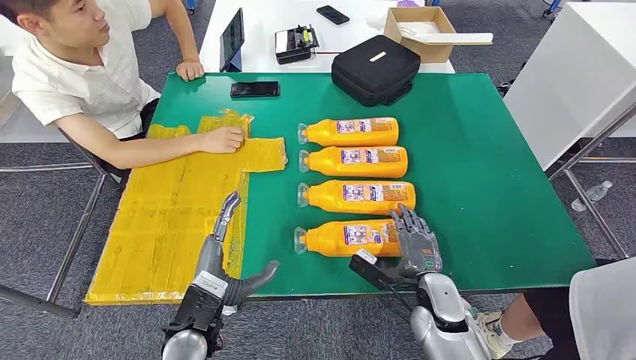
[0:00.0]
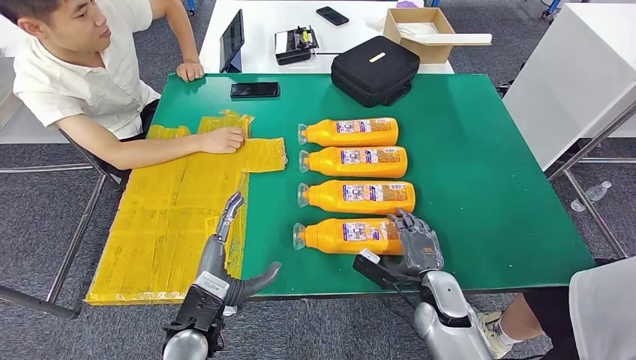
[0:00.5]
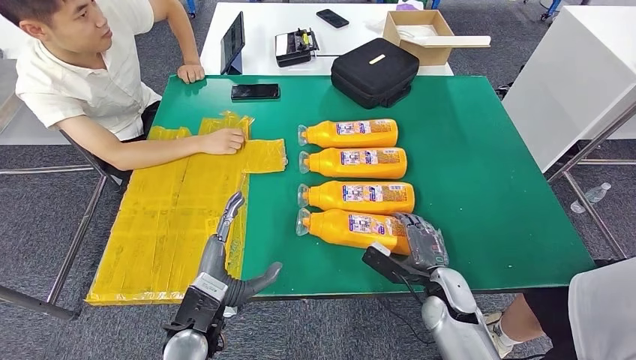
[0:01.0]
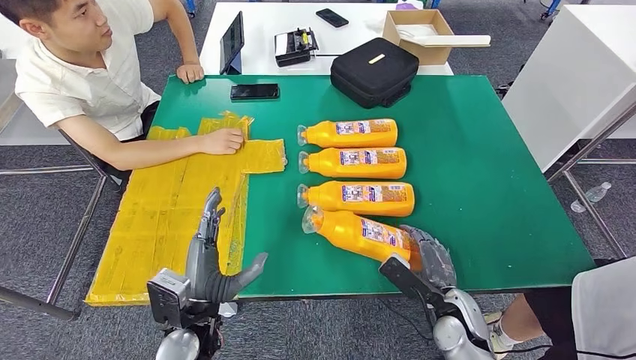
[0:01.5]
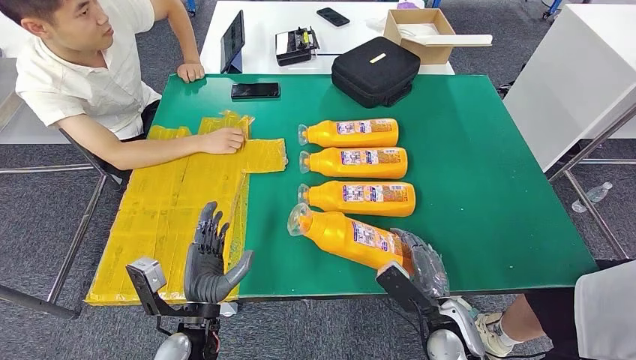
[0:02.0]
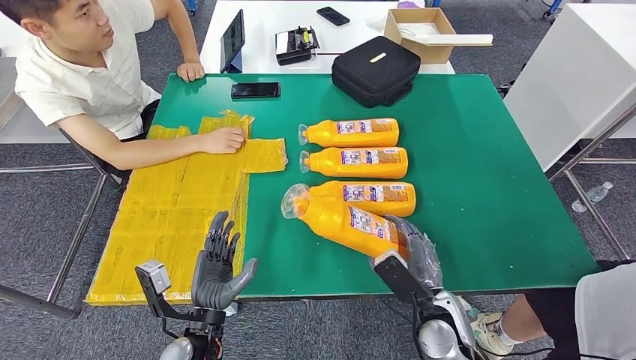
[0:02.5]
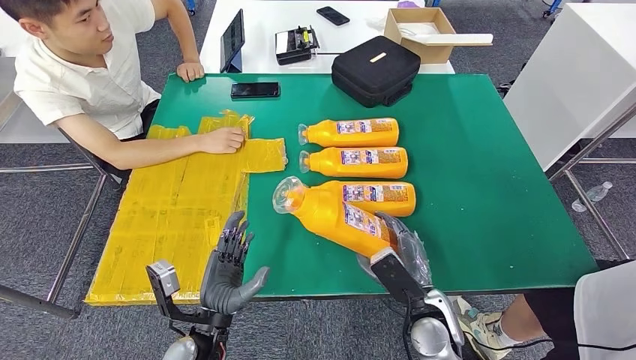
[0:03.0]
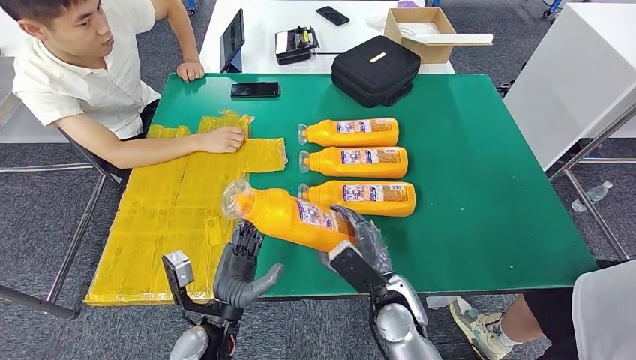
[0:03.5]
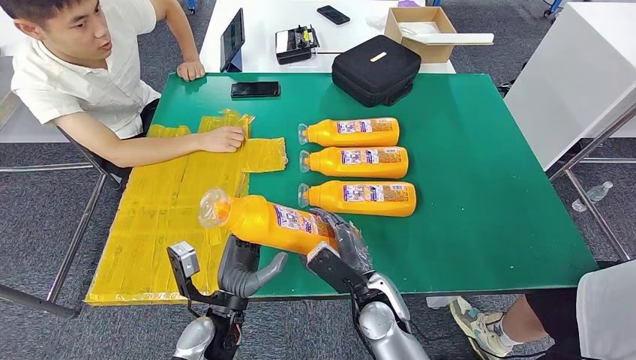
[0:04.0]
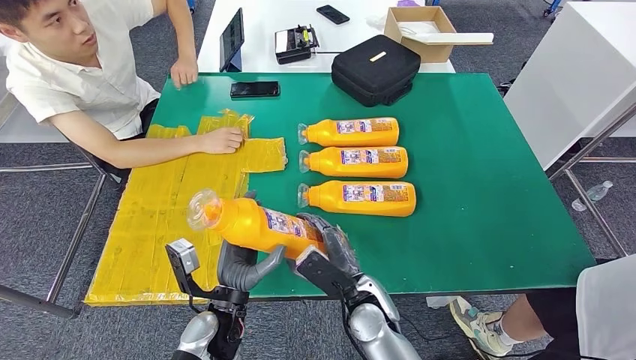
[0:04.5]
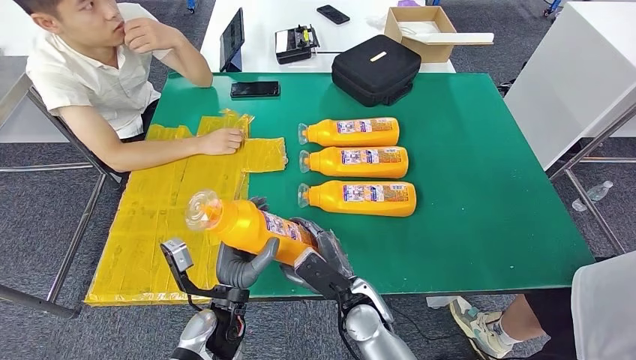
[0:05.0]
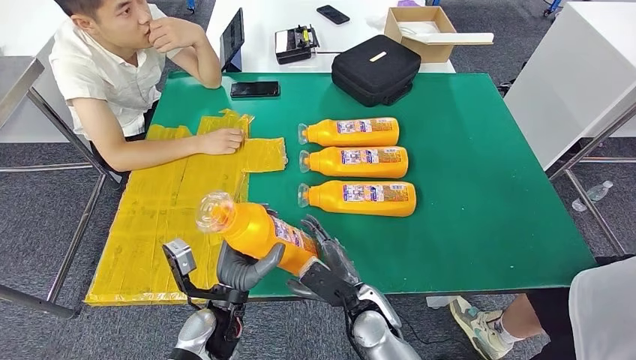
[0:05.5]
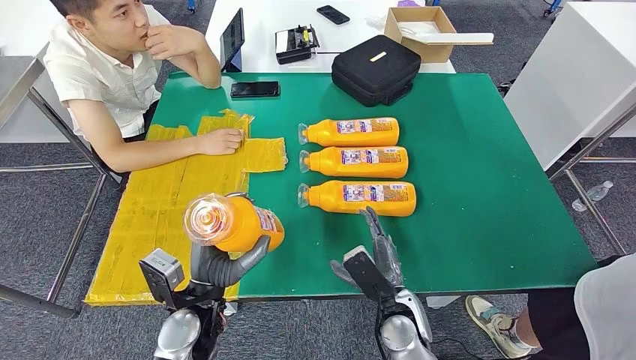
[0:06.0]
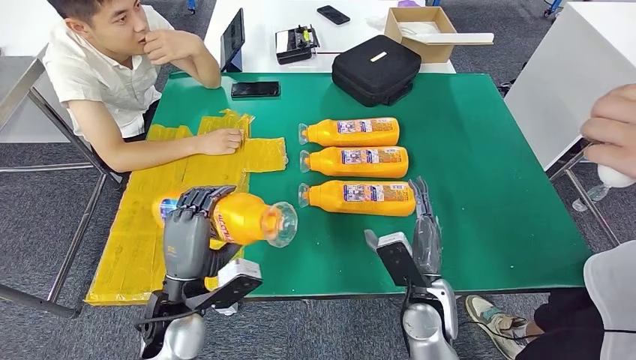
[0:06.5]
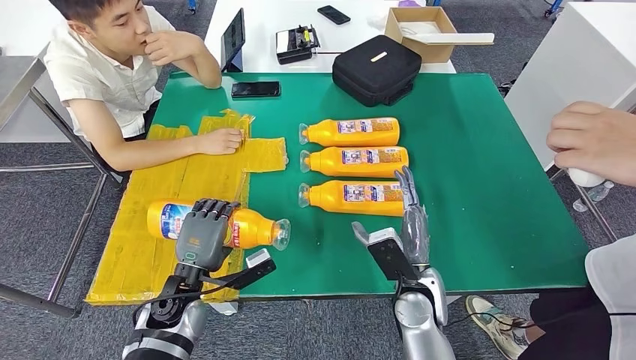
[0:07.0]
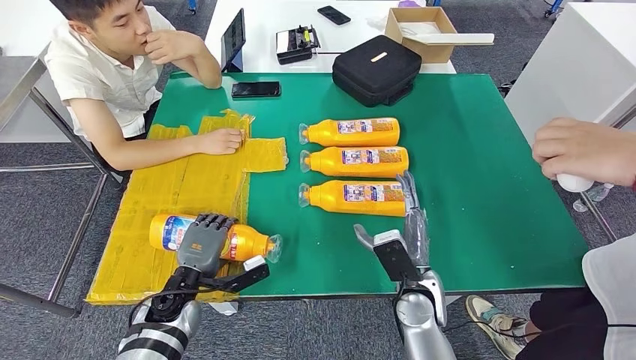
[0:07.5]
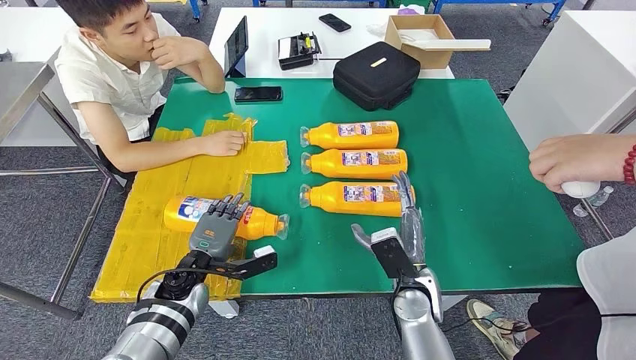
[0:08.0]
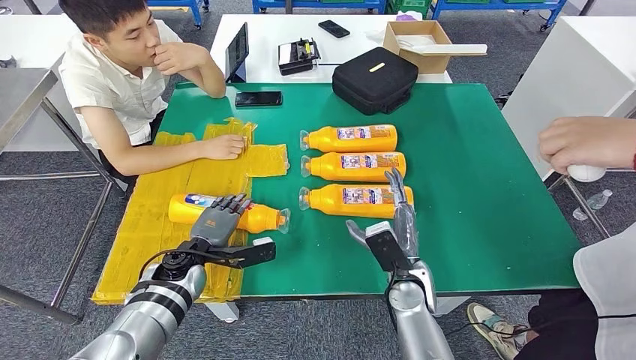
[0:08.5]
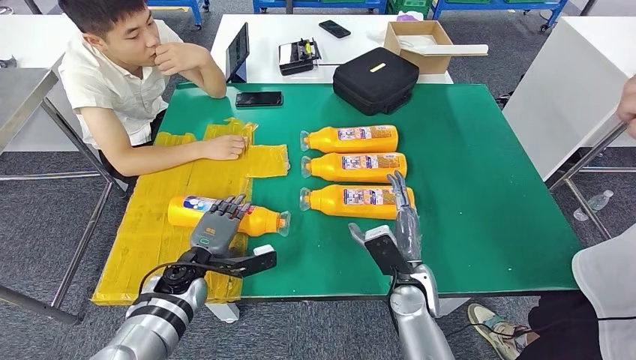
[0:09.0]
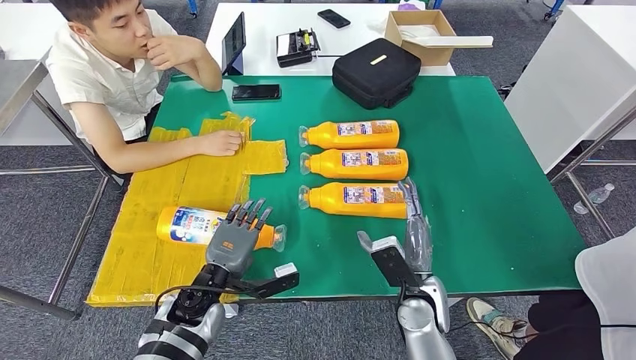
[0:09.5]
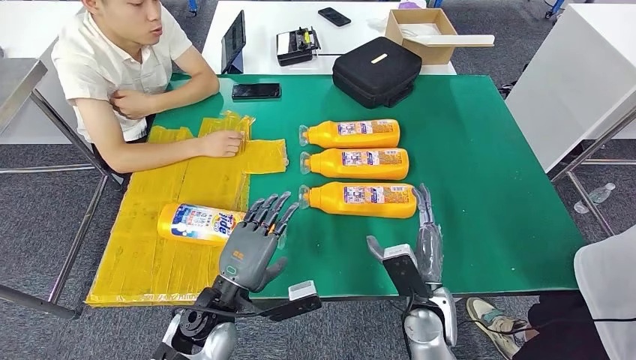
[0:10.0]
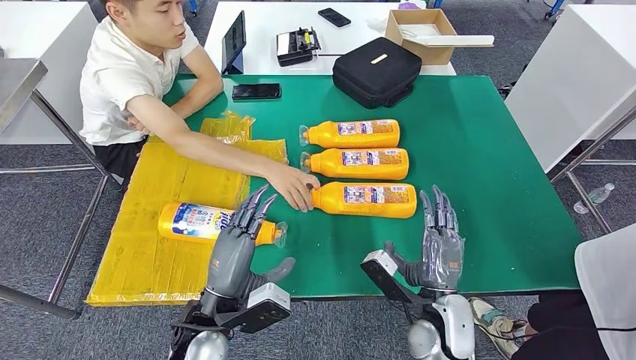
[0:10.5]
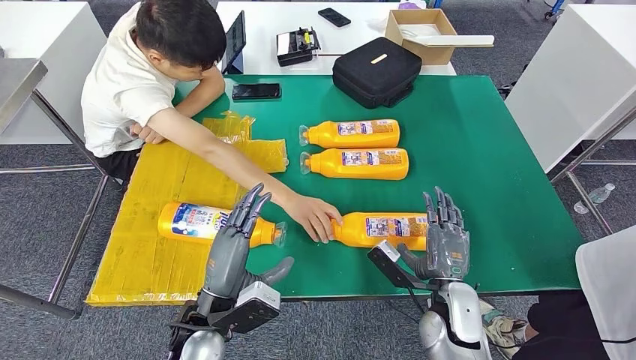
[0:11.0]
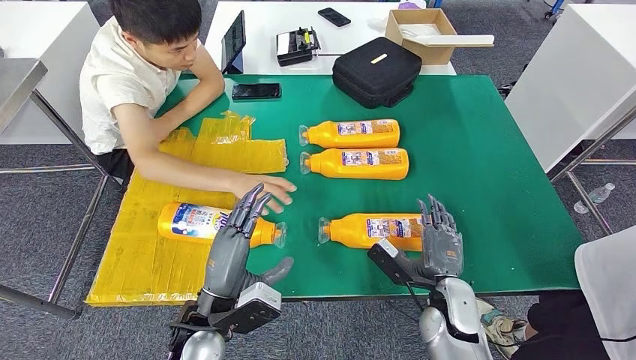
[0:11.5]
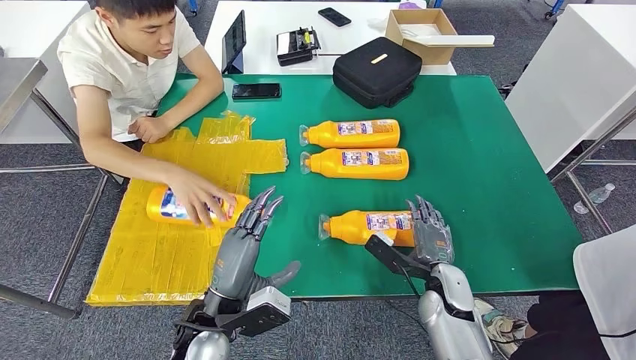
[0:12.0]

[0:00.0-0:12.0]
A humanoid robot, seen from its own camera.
Step, 0:00.0 to 0:03.5: Take the bottle from the table.
Step, 0:04.0 to 0:09.5: Flip the bottle to face forward.
0:02.0 to 0:04.0: The right hand travels to the left by approximately 10 cm.
0:10.0 to 0:12.0: The right hand travels to the right by approximately 5 cm.

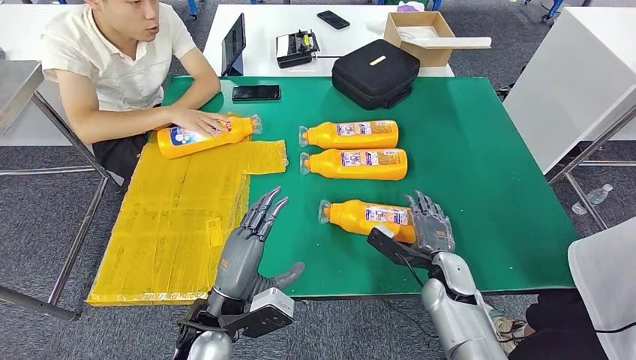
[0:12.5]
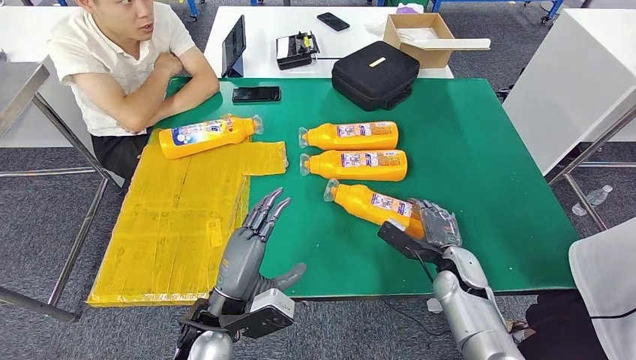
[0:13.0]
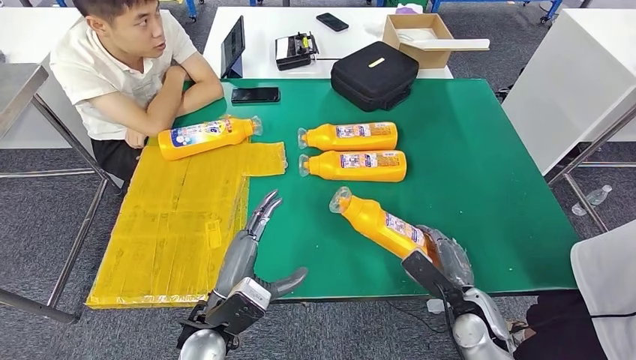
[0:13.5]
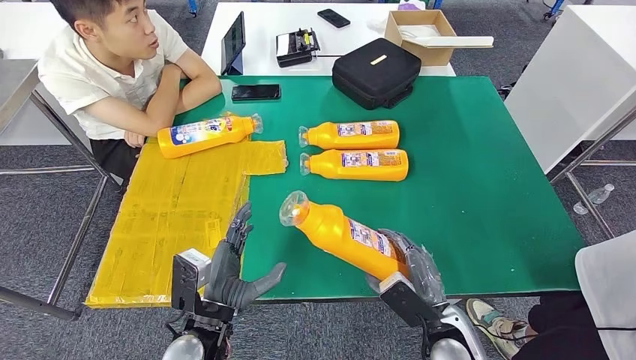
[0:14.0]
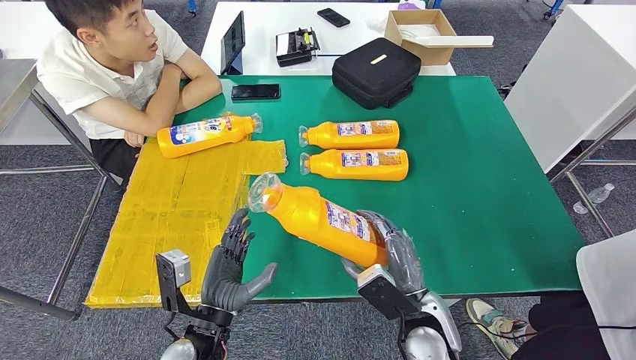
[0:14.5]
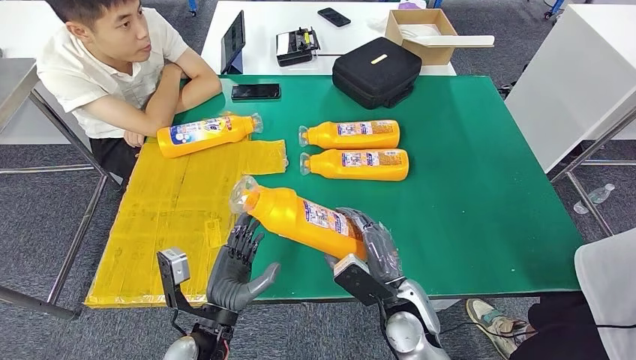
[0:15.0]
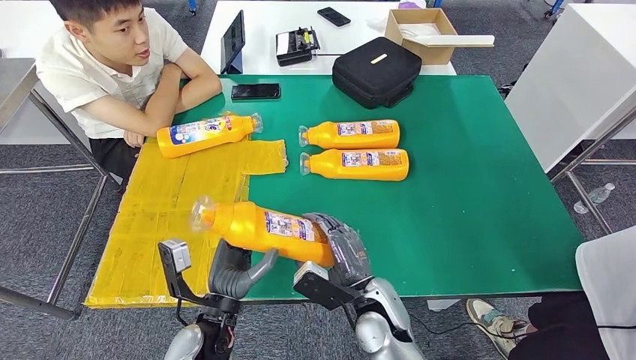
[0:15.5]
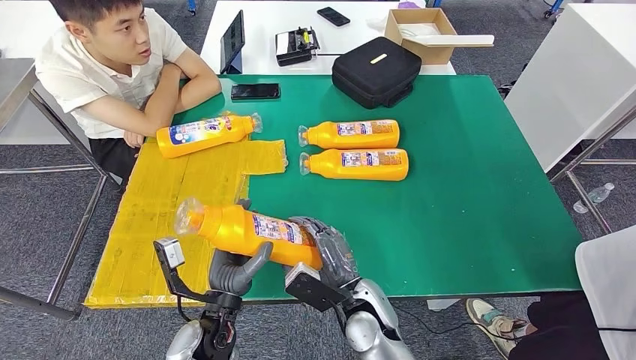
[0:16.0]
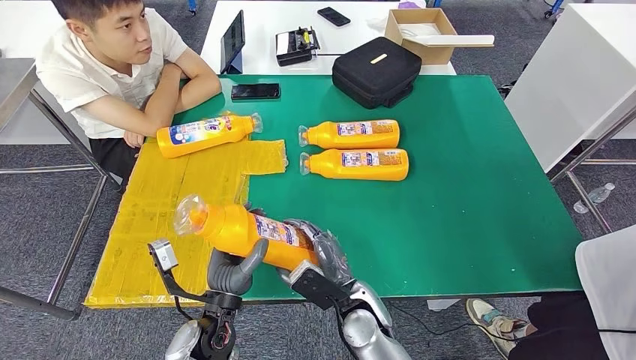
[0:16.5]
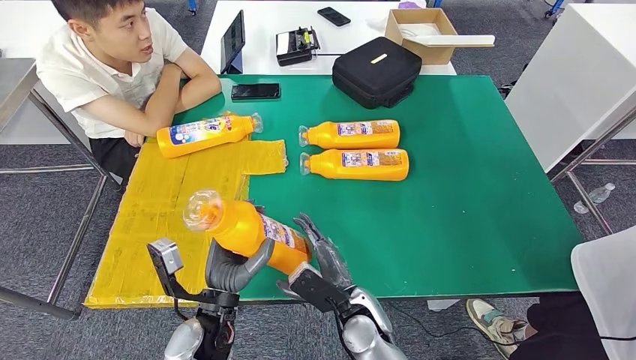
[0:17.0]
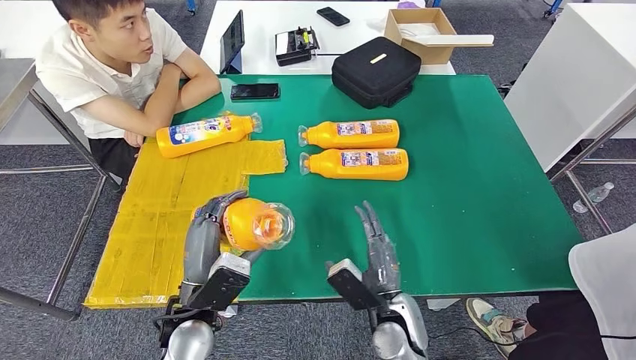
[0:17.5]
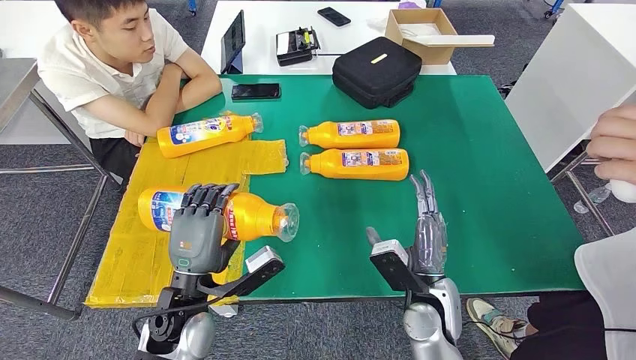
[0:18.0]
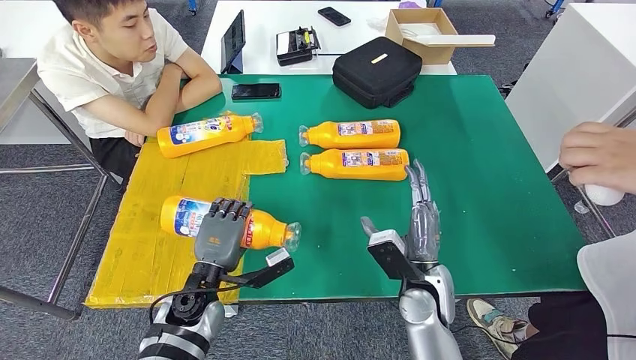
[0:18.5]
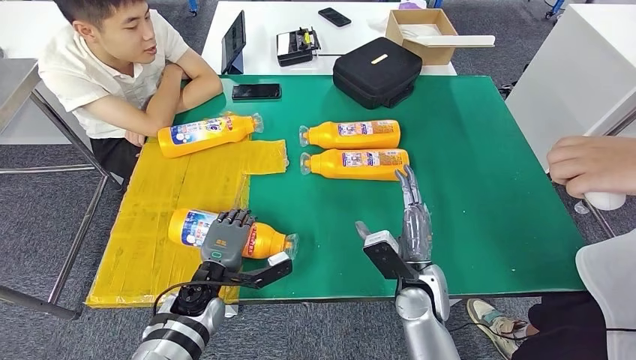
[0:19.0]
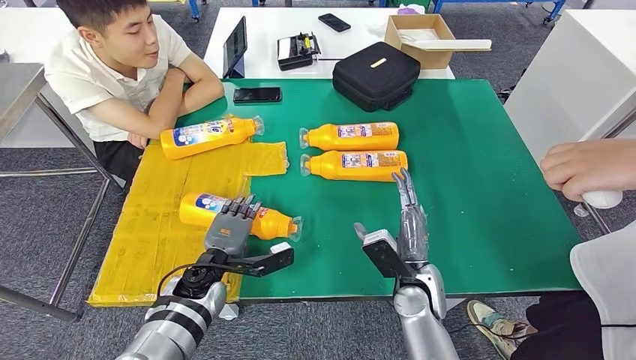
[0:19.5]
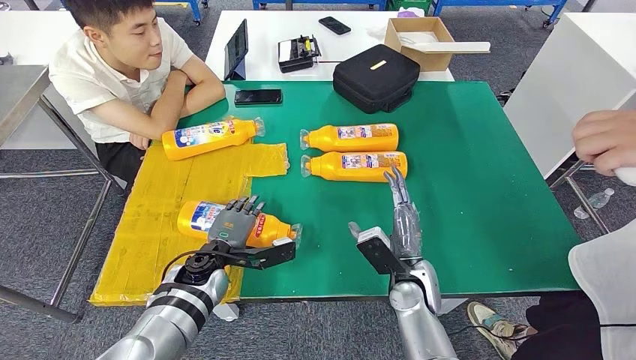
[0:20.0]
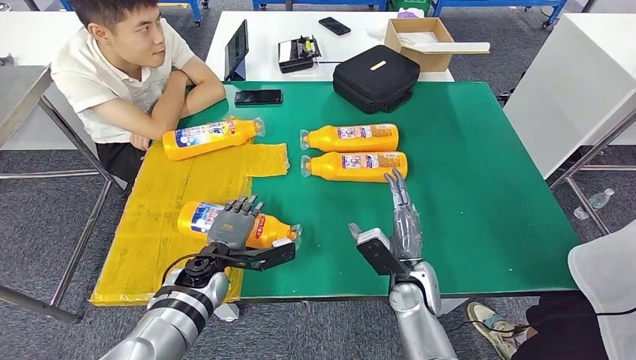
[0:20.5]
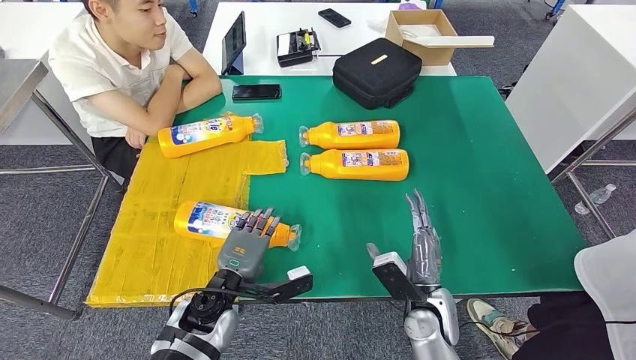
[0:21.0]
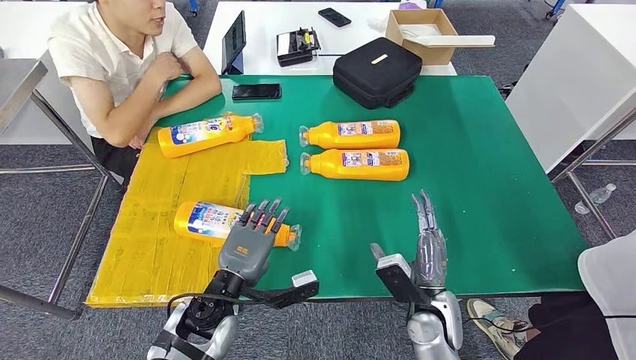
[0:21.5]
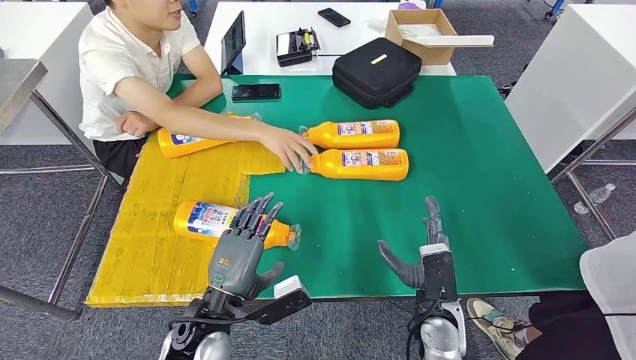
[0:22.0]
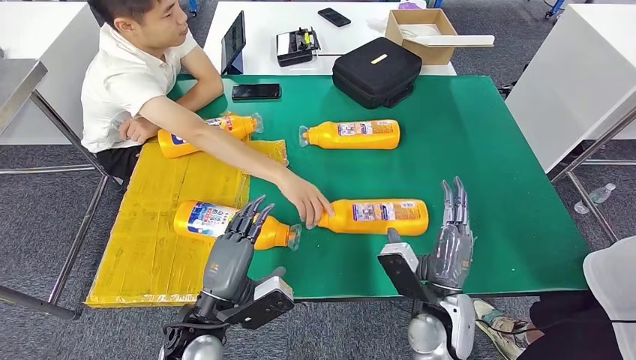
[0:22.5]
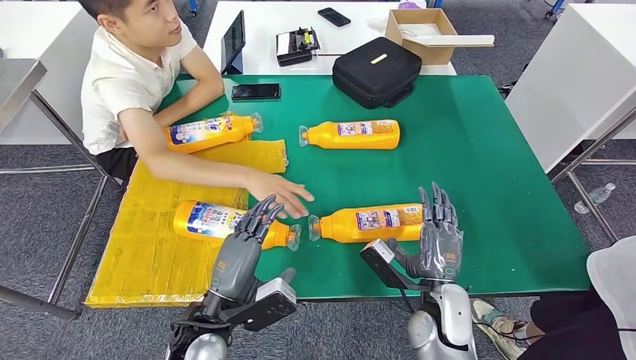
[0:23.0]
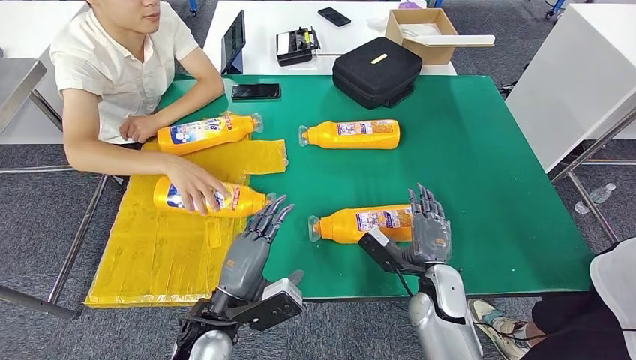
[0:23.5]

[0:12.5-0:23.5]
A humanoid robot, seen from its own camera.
Step, 0:13.0 to 0:17.0: Pick up the bottle from the table.
Step, 0:17.5 to 0:21.5: Flip the bottle to face forward.
0:14.5 to 0:16.0: The right hand shifts about 10 cm to the left.
0:16.0 to 0:18.0: The right hand moves to the right, approximately 10 cm; the left hand heads upward, covering about 5 cm.
